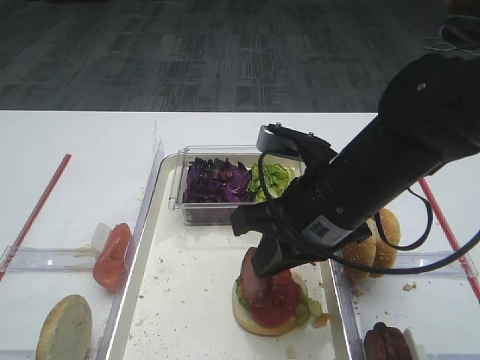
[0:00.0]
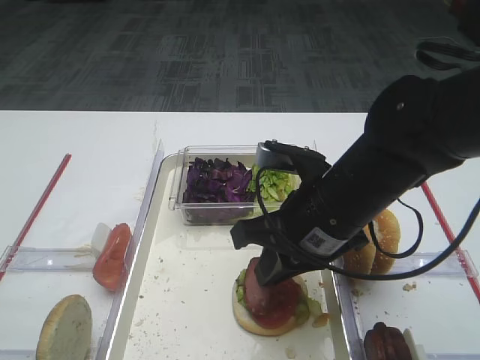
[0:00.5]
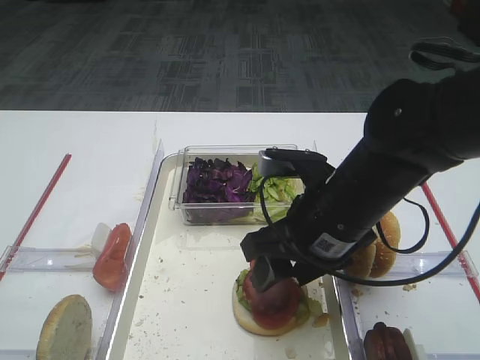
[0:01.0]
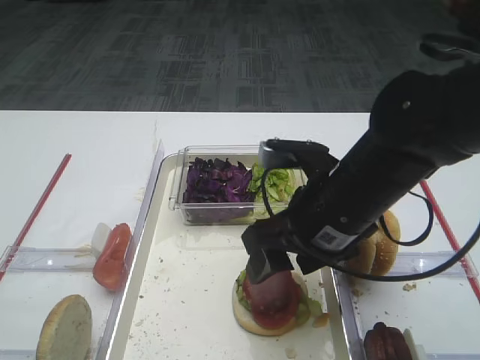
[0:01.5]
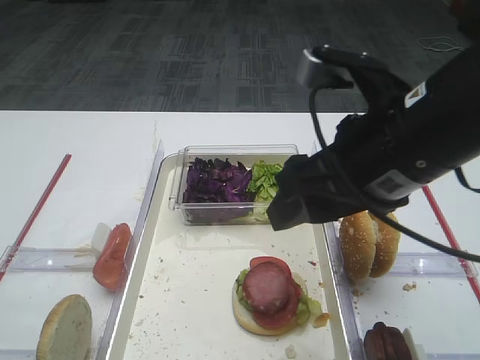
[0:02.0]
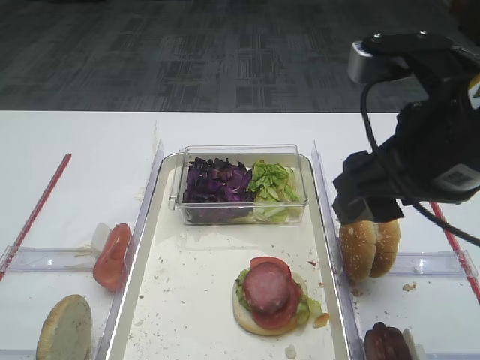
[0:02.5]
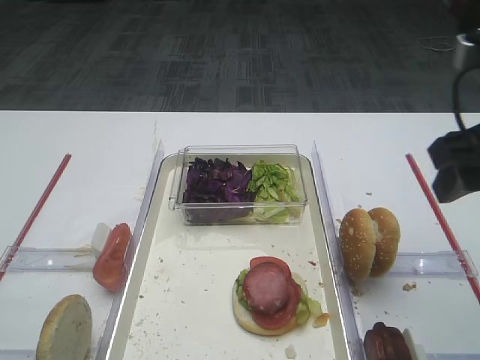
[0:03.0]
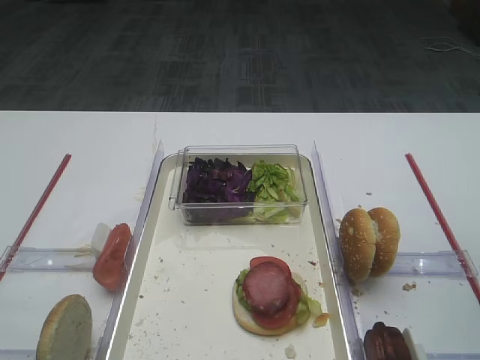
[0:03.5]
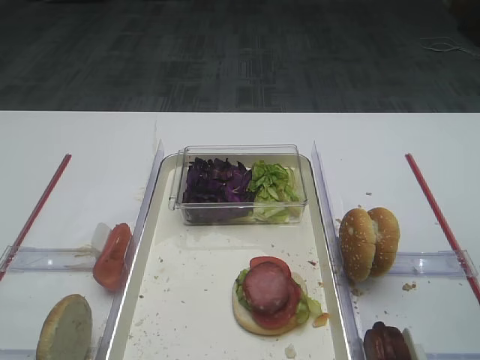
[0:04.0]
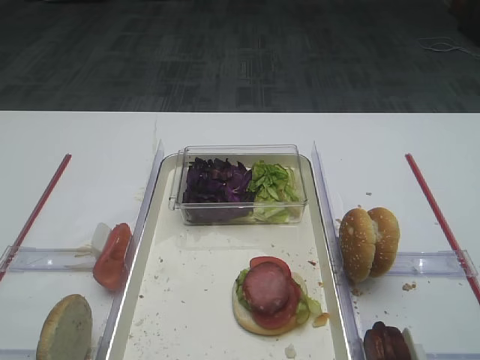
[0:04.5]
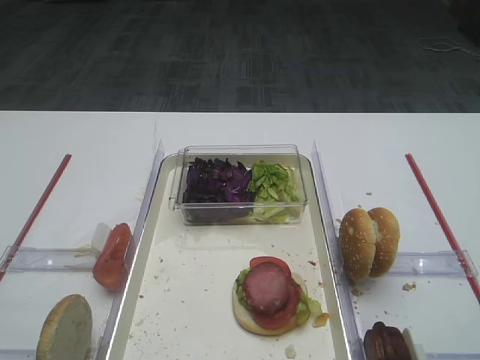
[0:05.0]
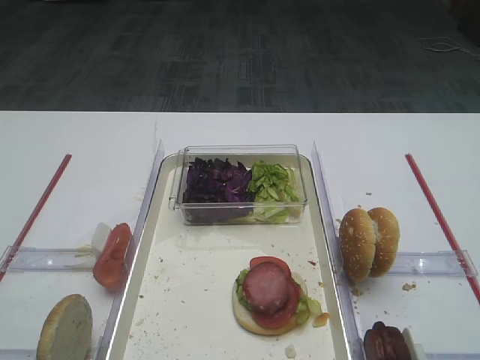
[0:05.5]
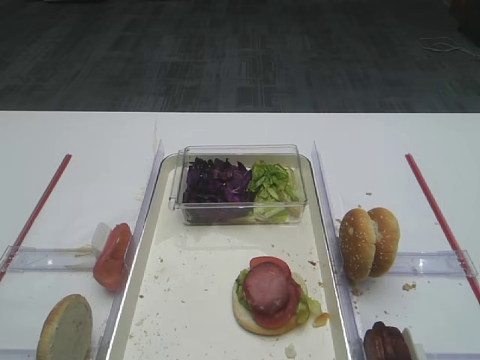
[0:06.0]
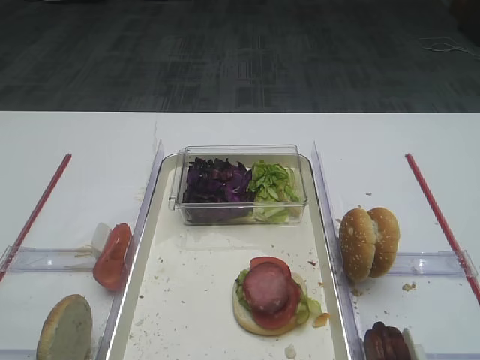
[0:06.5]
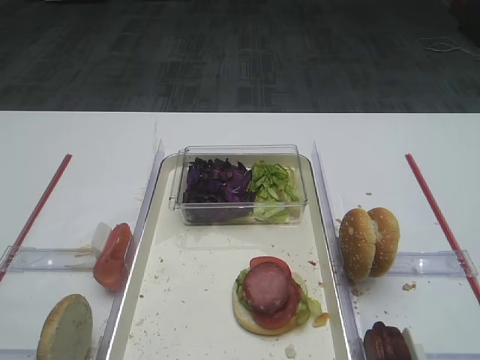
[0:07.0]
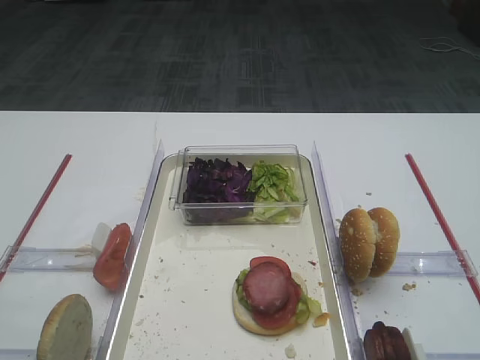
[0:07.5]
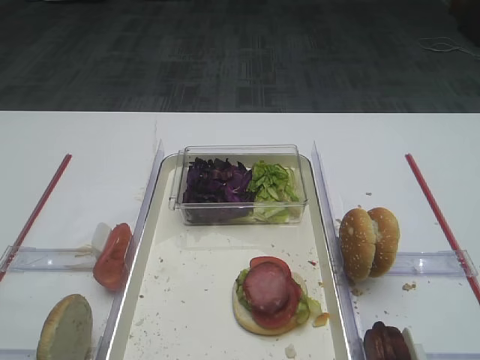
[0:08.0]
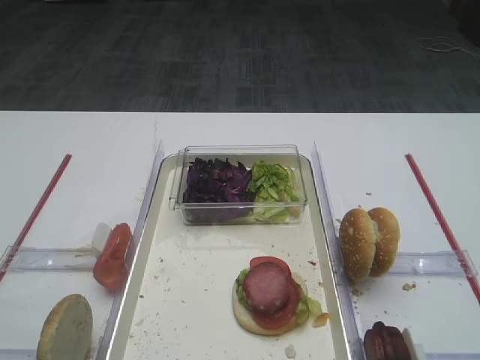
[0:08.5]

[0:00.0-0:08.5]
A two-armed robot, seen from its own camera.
Step, 0:00.0 to 0:02.5: Place the cutlet on the tomato slice with the right gripper.
0:00.0 to 0:02.0: The right gripper heads upward, covering roughly 10 cm, and opens its fingers.
0:02.0 to 0:04.0: The right gripper heads to the right, covering some 15 cm.
0:06.5 to 0:08.5: The two grippers keep their place.

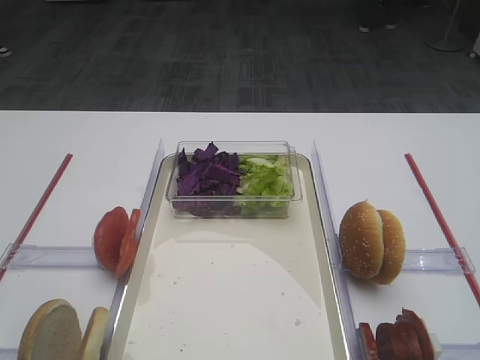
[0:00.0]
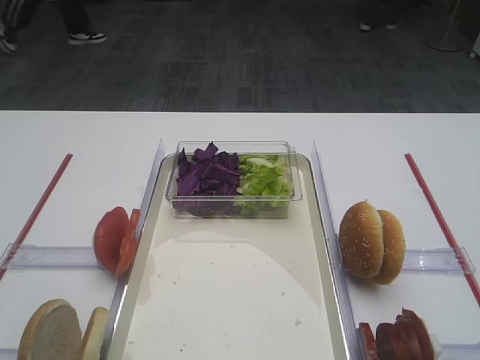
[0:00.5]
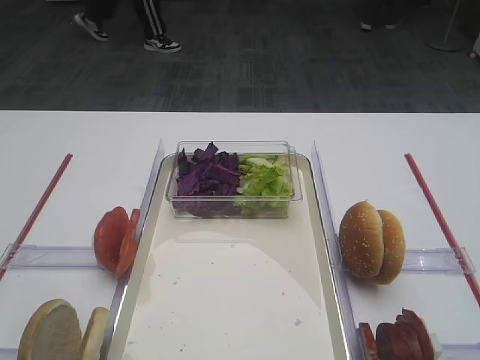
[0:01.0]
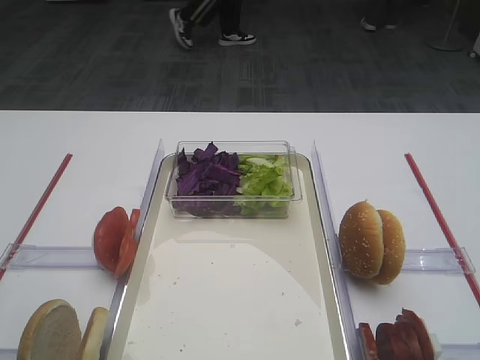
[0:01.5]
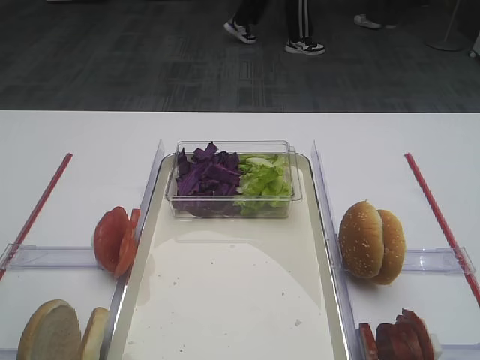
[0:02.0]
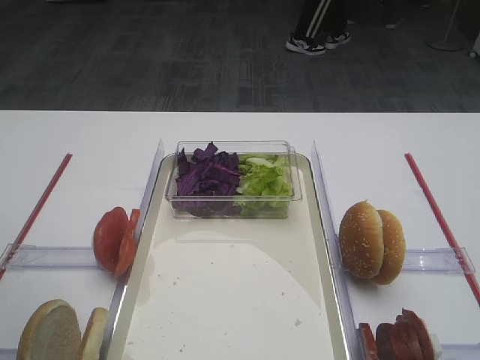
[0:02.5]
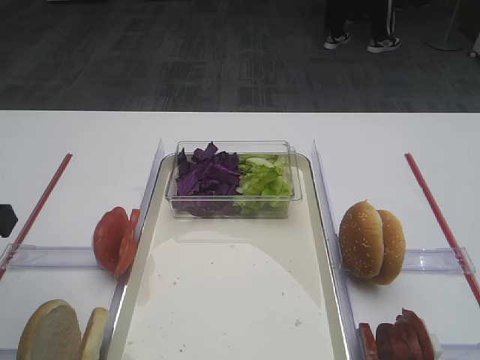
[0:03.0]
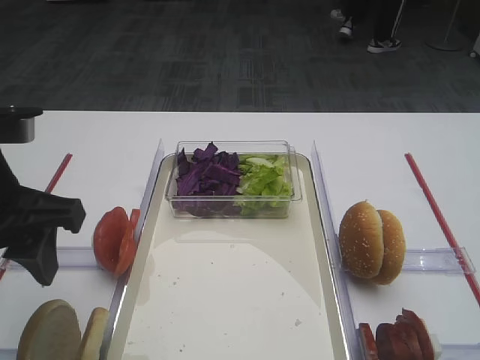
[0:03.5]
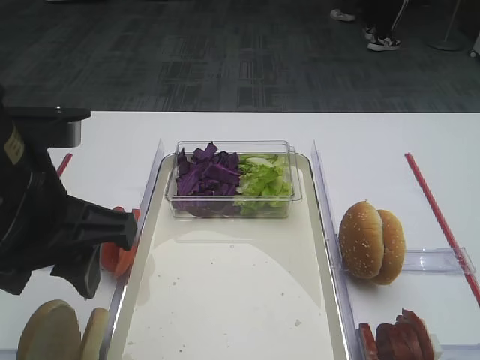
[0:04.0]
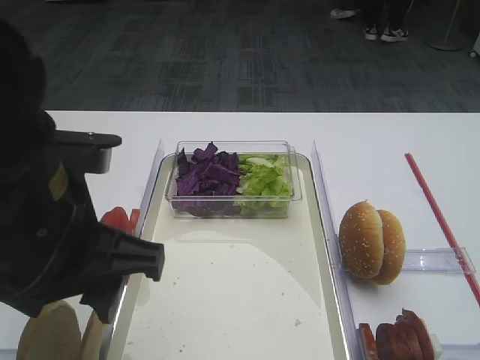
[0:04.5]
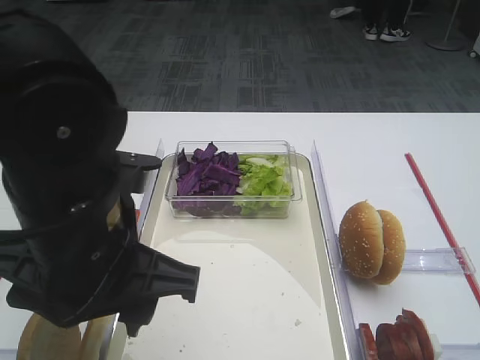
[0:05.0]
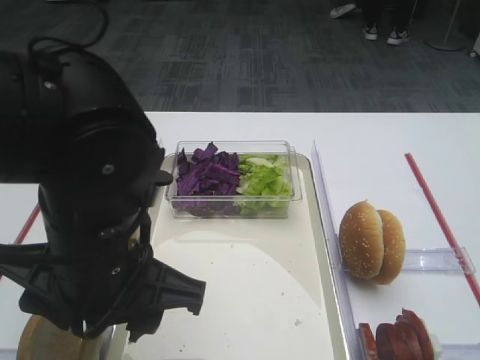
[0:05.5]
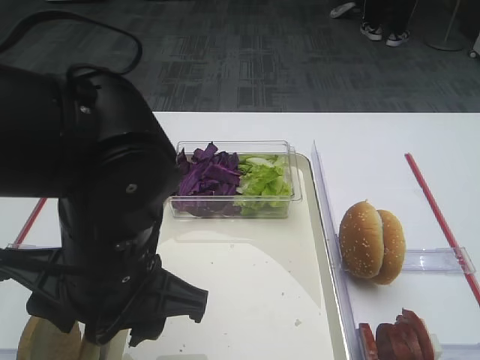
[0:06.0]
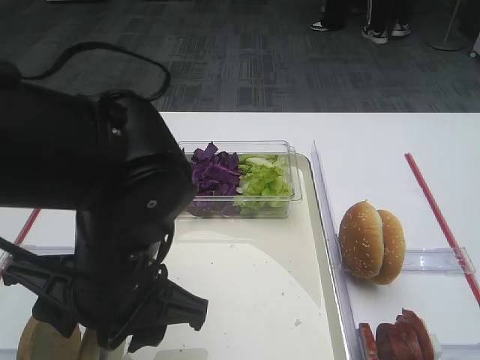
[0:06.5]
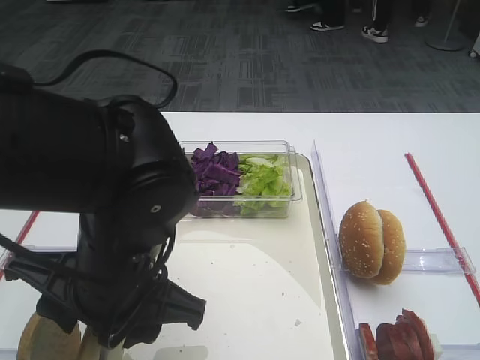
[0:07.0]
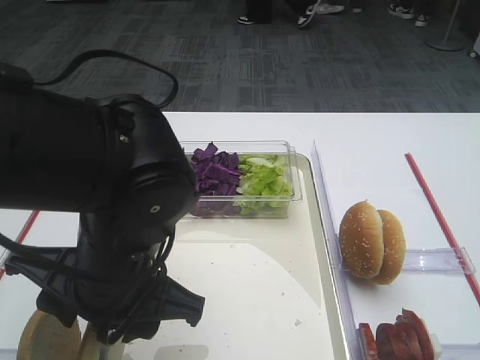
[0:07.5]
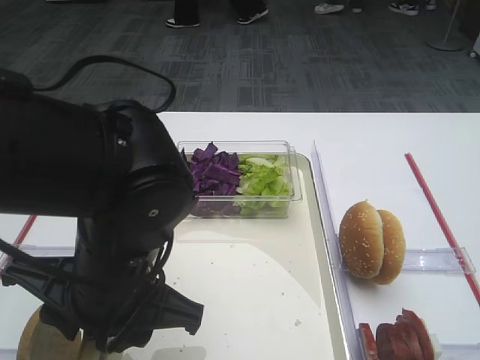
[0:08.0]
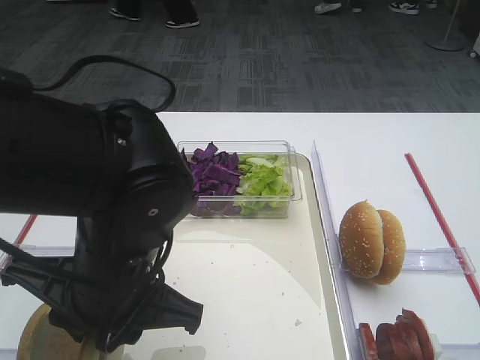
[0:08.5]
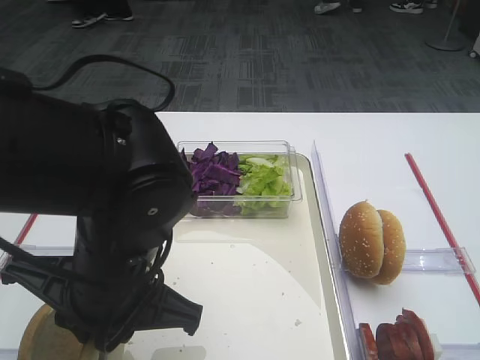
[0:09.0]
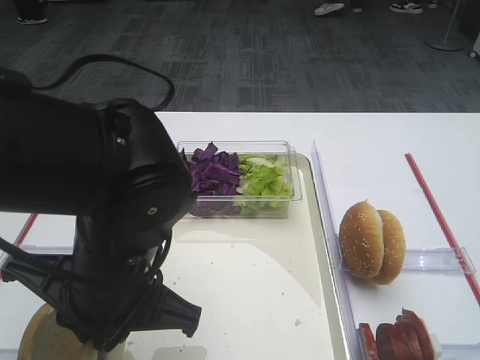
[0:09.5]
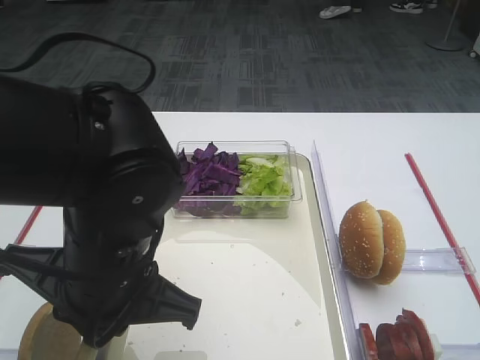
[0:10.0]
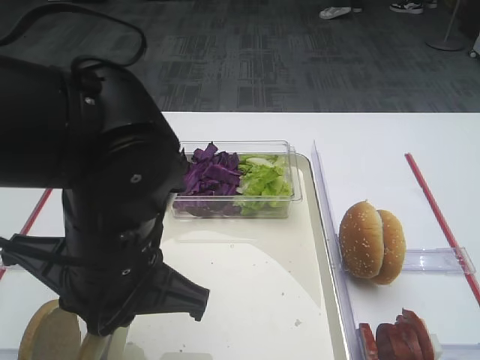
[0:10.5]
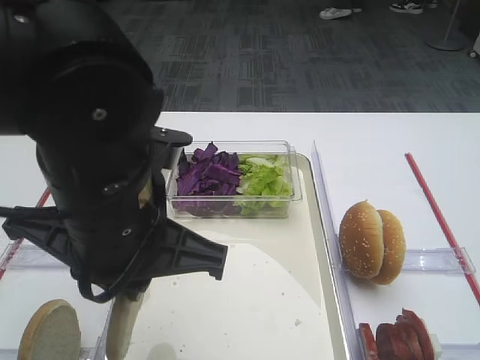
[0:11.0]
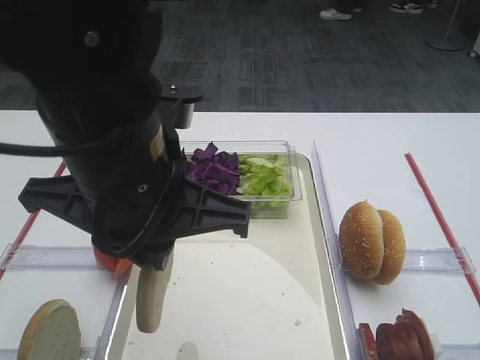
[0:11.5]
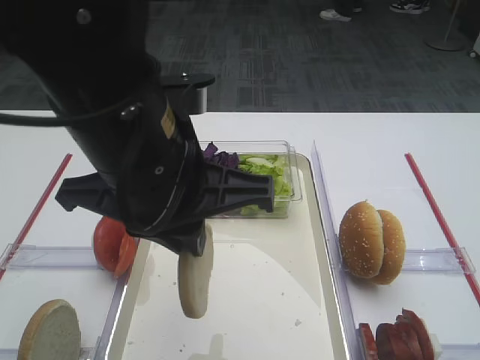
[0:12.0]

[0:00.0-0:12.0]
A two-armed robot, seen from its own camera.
Step, 0:00.0 to 0:10.5: Pick up the bread slice with the left gripper.
0:02.0 to 0:04.0: The left gripper shifts some 10 cm to the right.
0:04.0 to 0:06.0: The left gripper shifts roughly 10 cm to the right and downward.
0:06.0 to 0:08.0: The grippers stay close to where they were, moving slightly.
0:08.0 to 0:10.0: The left gripper closes up.
0:10.0 to 0:12.0: The left gripper moves upward, approximately 10 cm.

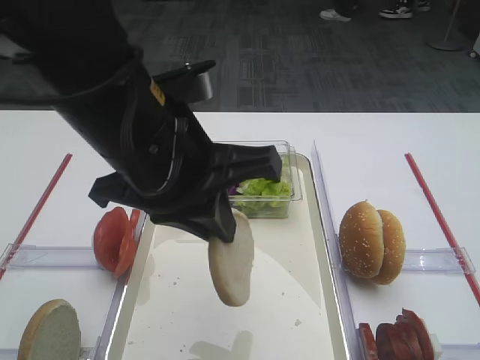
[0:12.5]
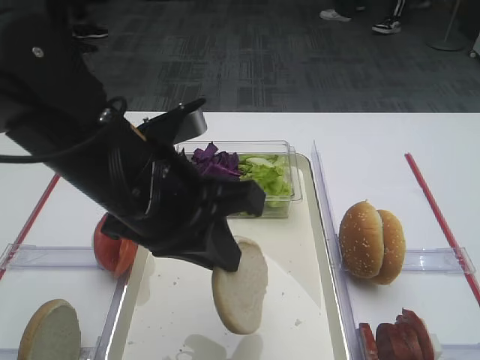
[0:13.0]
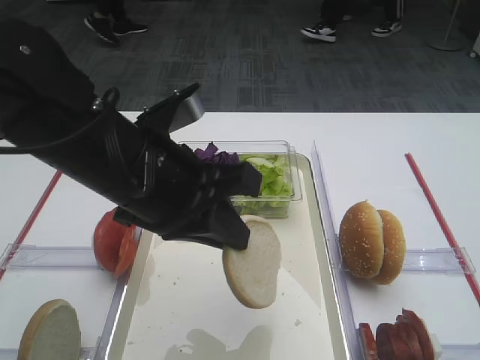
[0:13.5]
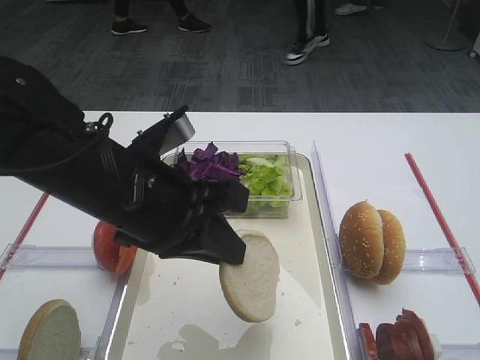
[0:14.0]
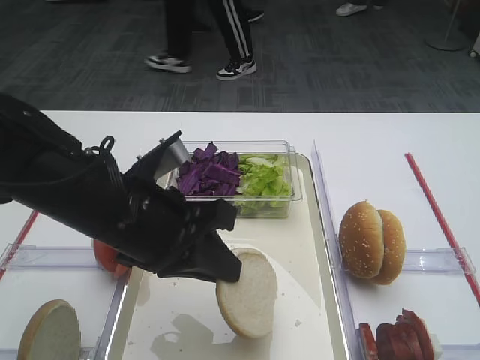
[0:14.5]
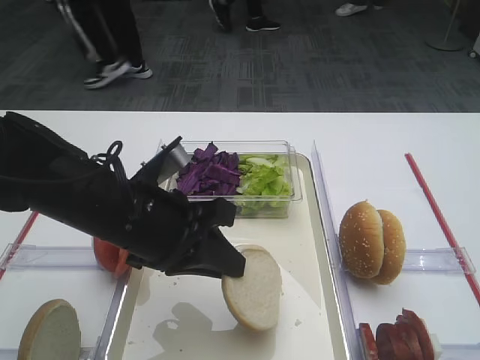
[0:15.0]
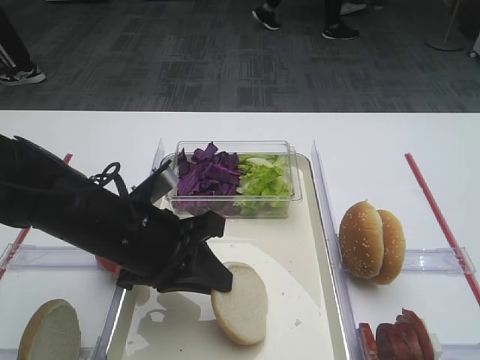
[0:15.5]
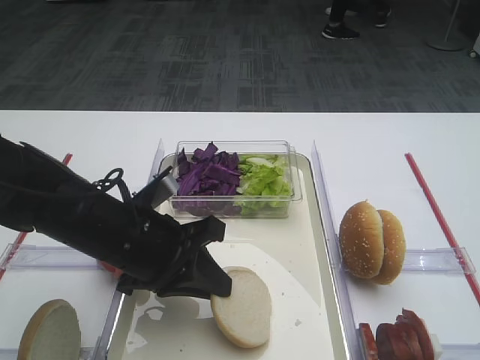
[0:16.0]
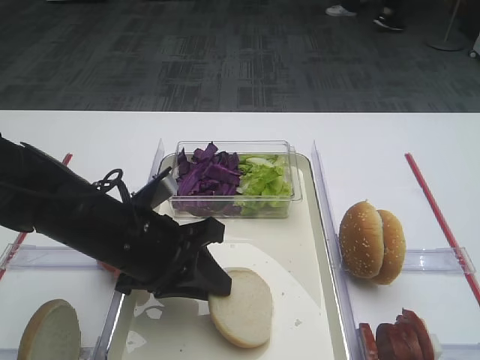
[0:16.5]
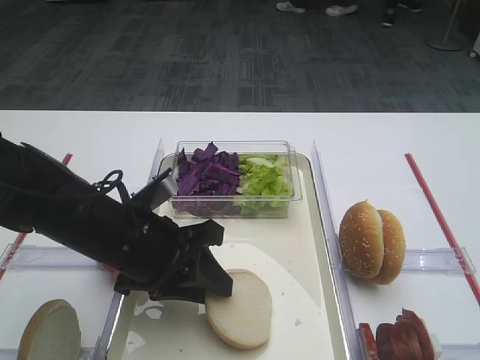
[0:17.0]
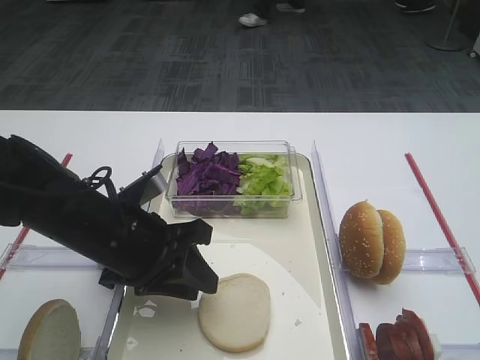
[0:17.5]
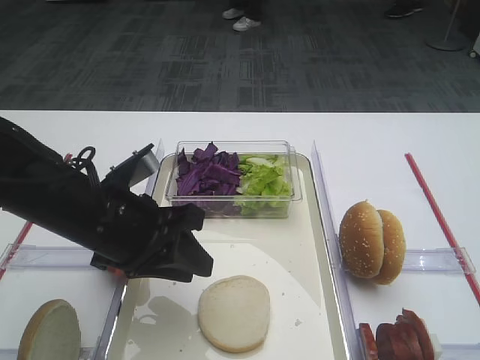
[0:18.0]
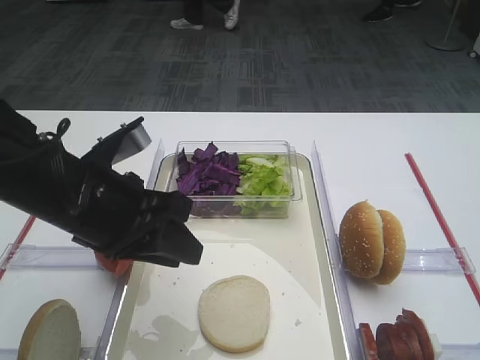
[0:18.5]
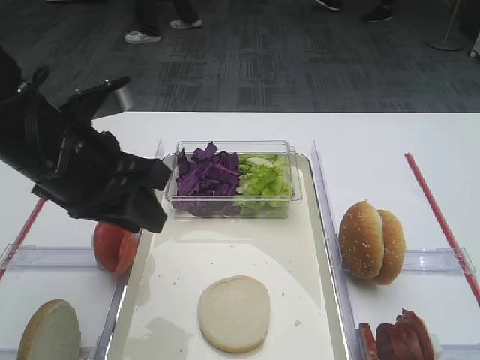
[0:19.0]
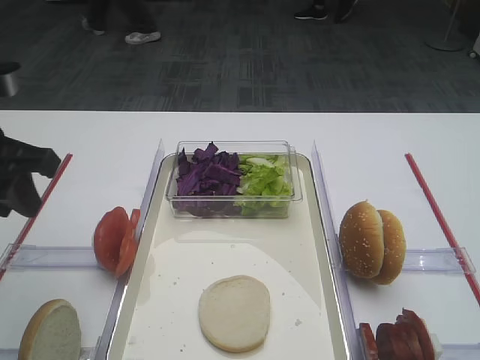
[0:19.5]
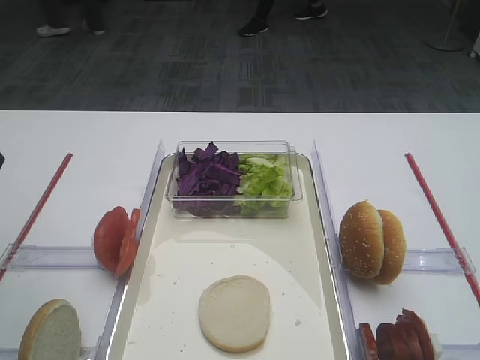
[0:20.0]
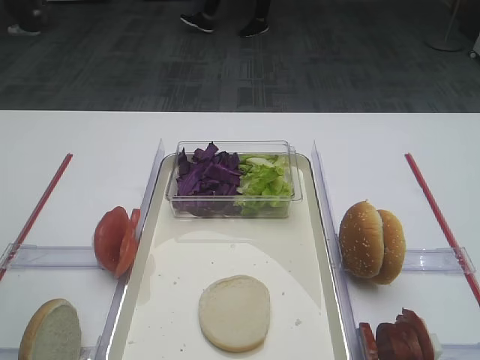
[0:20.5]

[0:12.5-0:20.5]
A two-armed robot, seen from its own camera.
Step, 0:12.5 to 0:18.5: Place the bread slice on the tray with the left gripper.
0:12.5 to 0:14.5: The left gripper goes some 10 cm downward.
0:14.5 to 0:16.5: The left gripper is displaced downward by about 5 cm.
0:16.5 to 0:18.5: The left gripper heads upward, covering about 5 cm.
0:18.5 to 0:20.5: The left gripper heads to the left and upward, covering roughly 20 cm.
